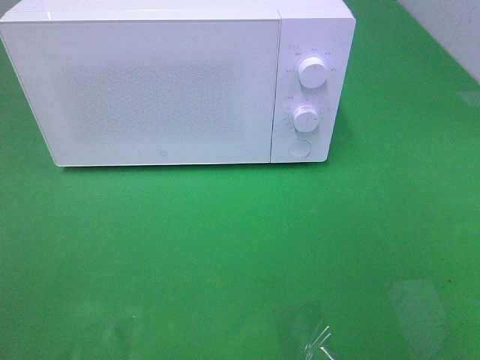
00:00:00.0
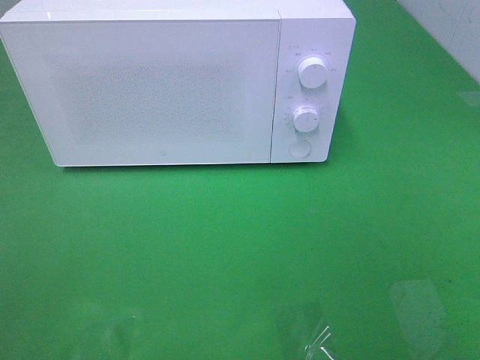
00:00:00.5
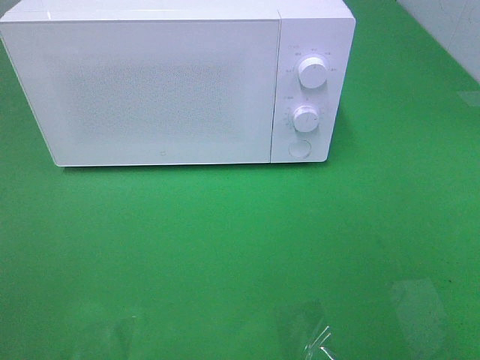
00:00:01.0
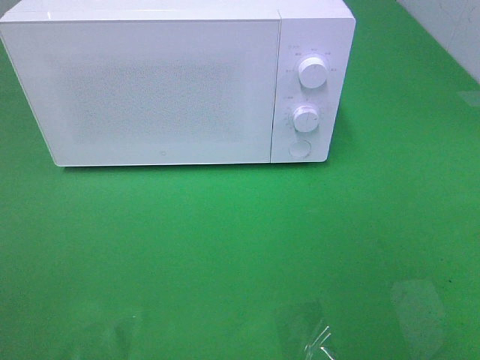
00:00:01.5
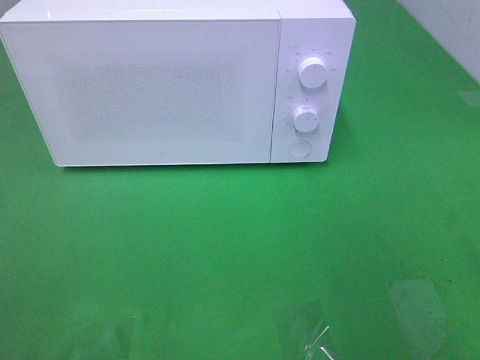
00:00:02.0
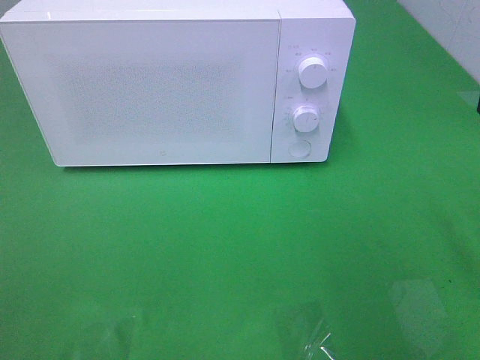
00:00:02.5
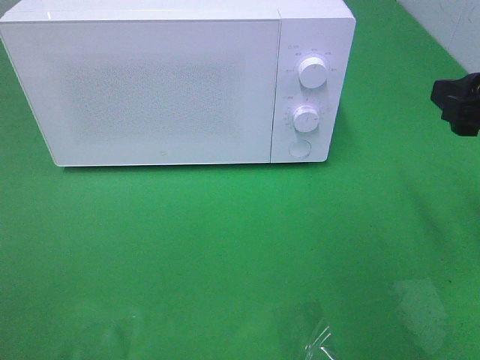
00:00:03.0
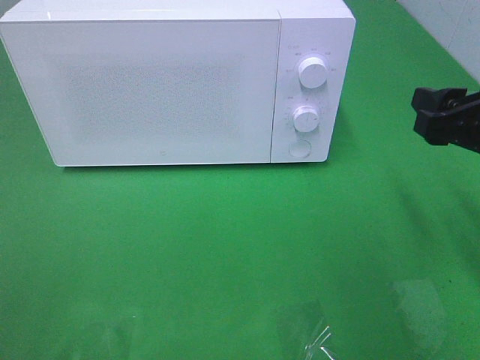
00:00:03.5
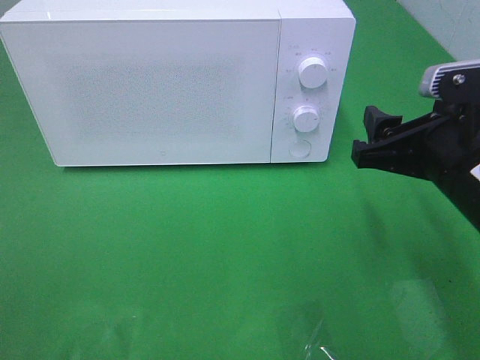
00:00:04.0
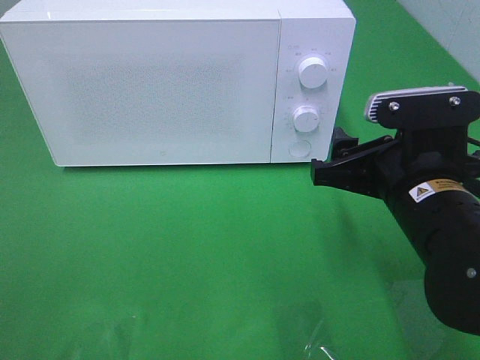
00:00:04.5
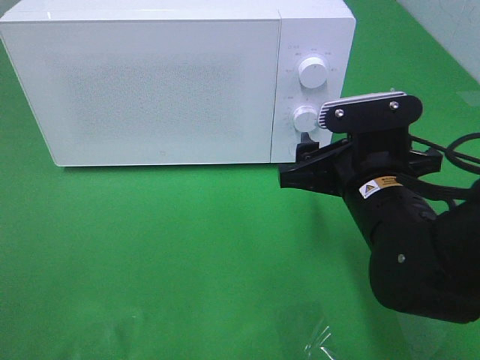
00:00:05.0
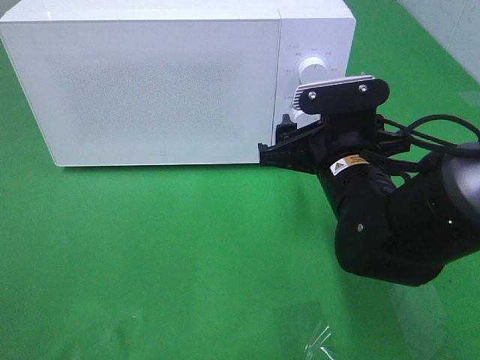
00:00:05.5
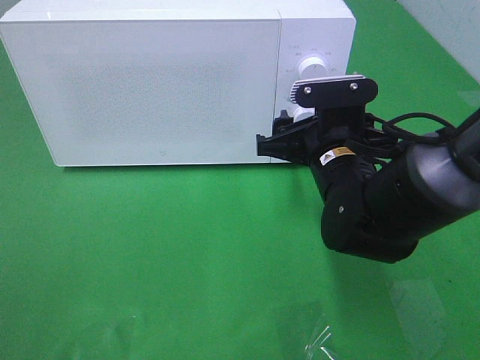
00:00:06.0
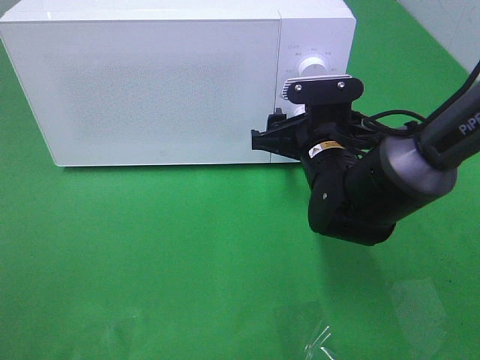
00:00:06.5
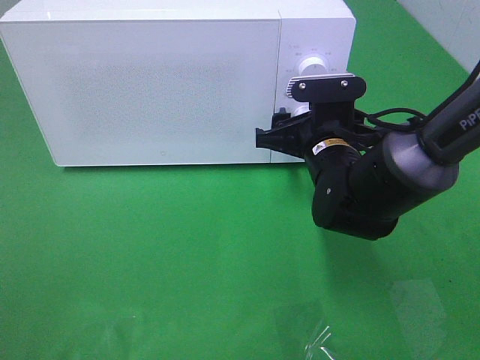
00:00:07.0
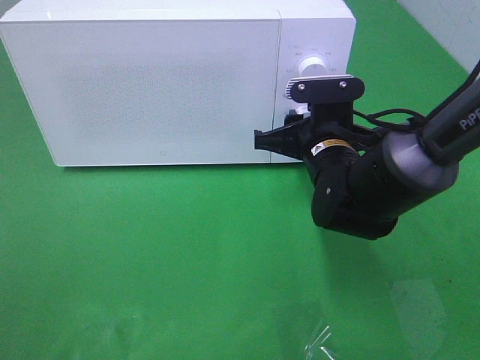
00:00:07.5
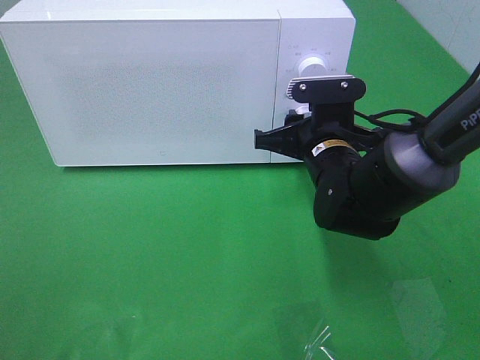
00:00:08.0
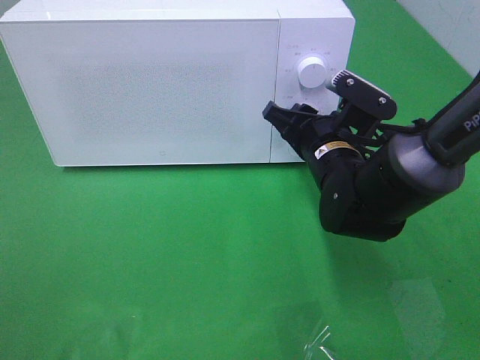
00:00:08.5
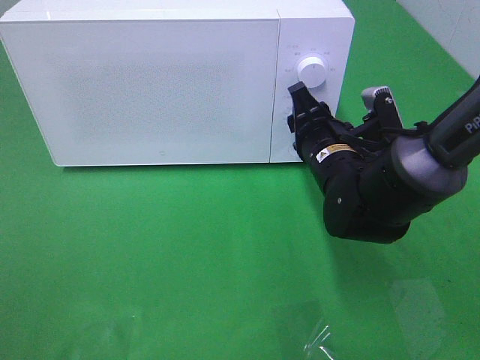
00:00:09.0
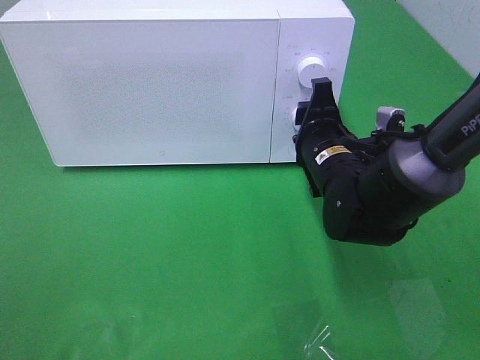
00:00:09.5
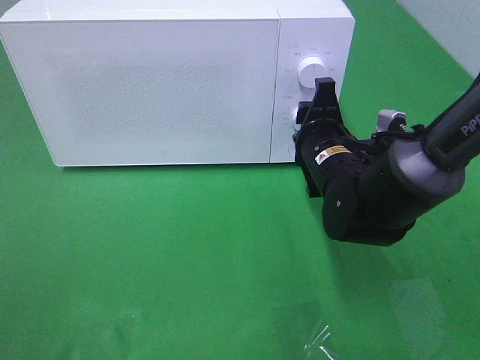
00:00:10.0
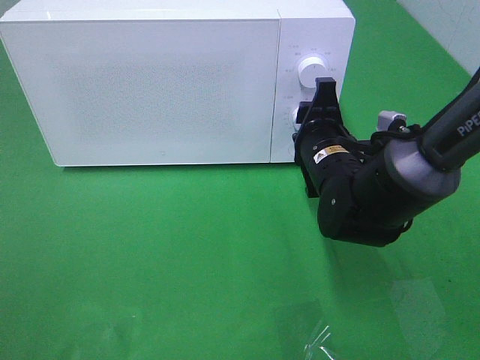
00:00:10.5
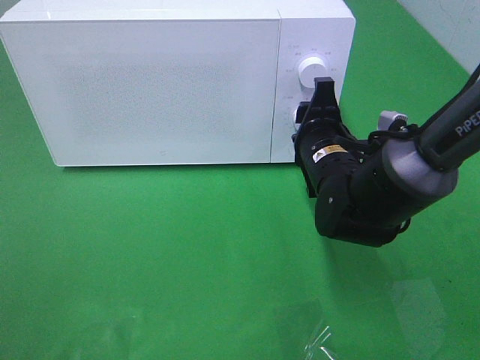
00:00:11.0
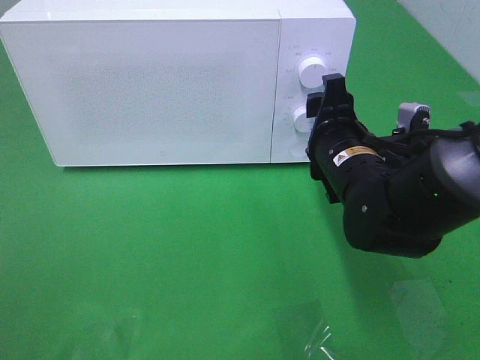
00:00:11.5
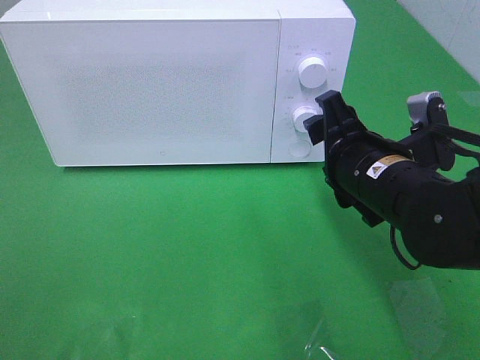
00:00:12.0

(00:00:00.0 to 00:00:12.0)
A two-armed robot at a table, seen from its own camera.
Task of the whole recording: Heat the burger.
Step, 00:00:00.0 - 00:00:11.5: Right hand: twist timer button.
00:00:02.0 - 00:00:04.0: The right gripper shifts approximately 15 cm forward, downward and to the left.
00:00:04.0 - 00:00:06.0: The right gripper moves to the left, forward and downward, some 15 cm.
00:00:06.0 - 00:00:08.0: The right gripper closes.
00:00:10.0 - 00:00:12.0: The right gripper heads backward, covering about 5 cm.

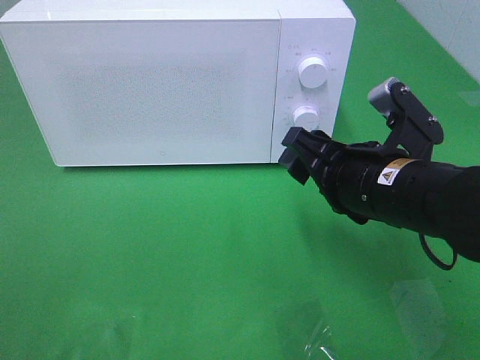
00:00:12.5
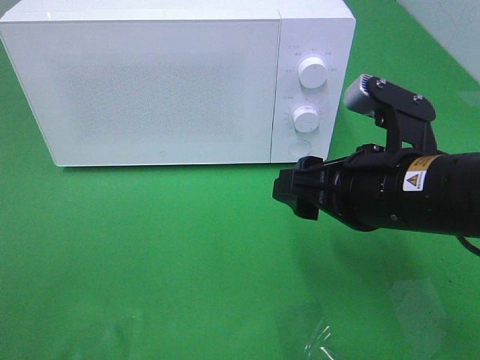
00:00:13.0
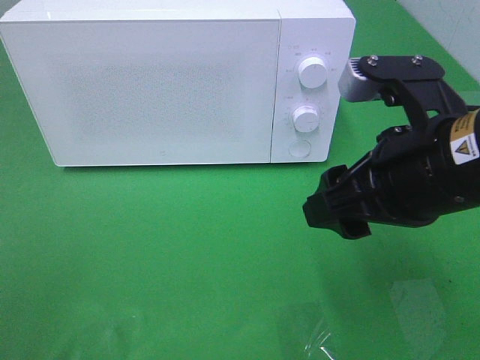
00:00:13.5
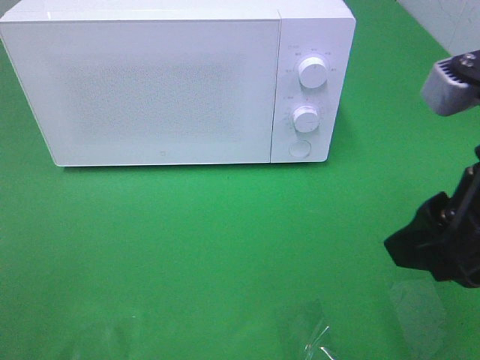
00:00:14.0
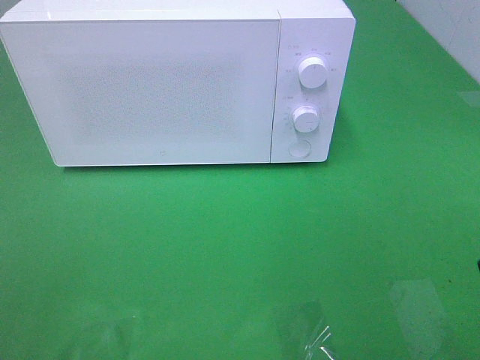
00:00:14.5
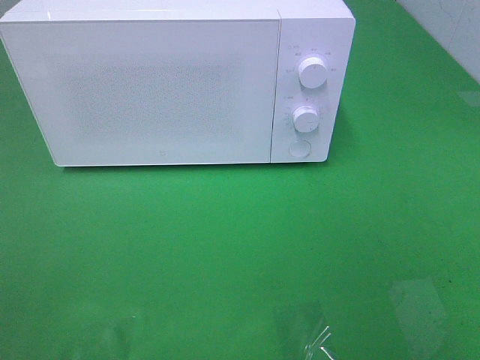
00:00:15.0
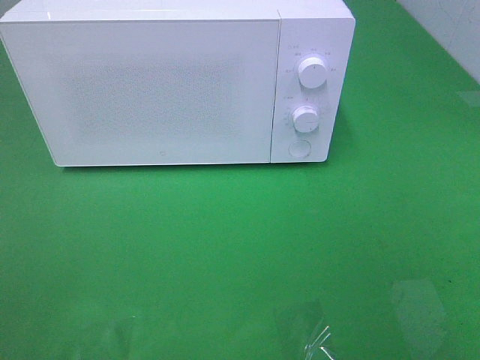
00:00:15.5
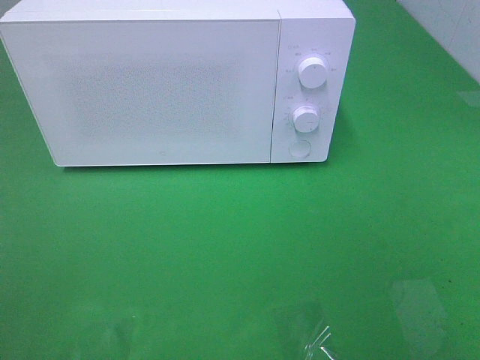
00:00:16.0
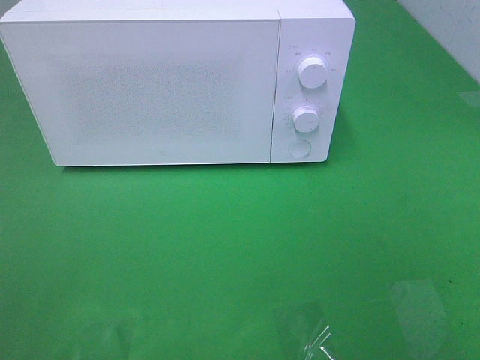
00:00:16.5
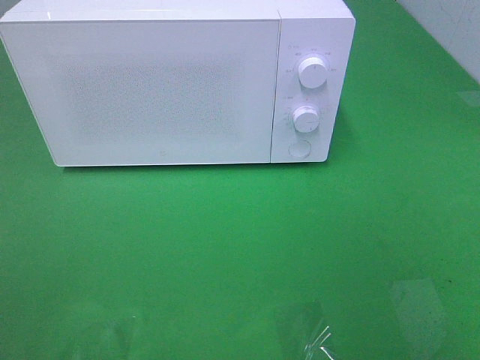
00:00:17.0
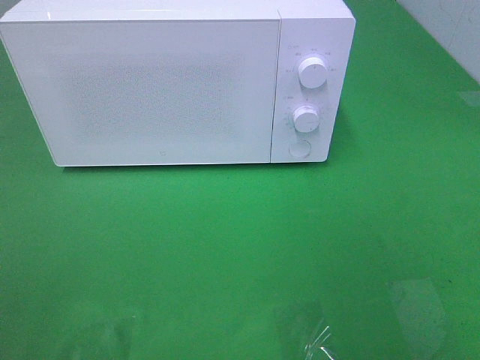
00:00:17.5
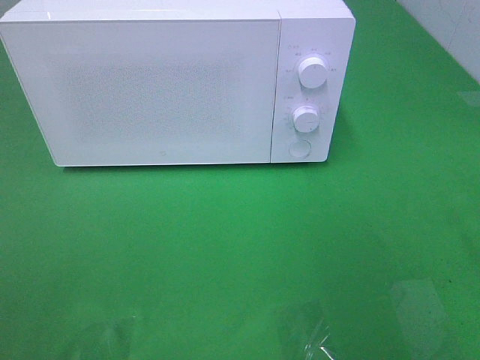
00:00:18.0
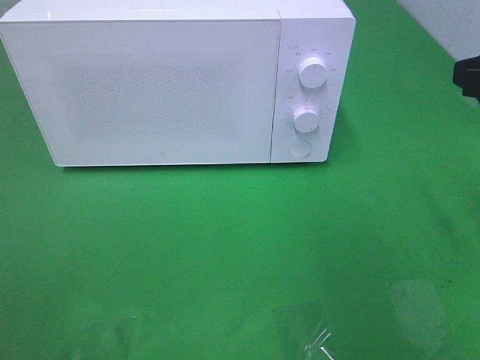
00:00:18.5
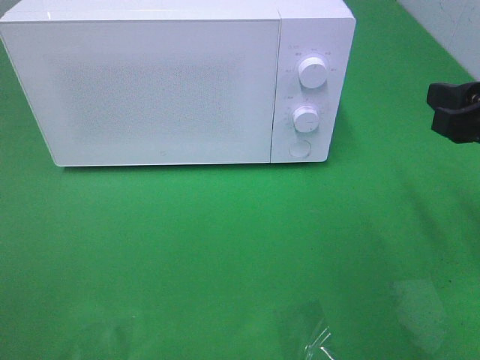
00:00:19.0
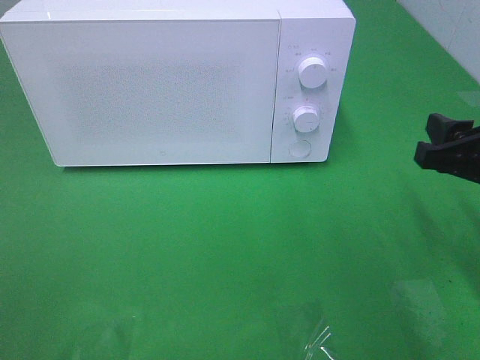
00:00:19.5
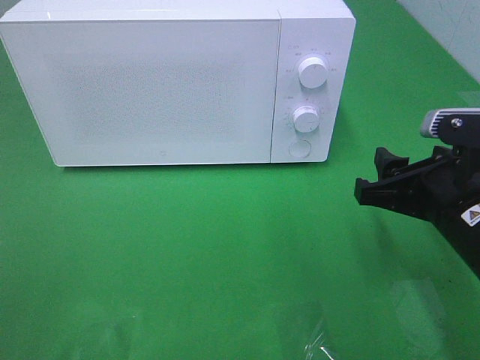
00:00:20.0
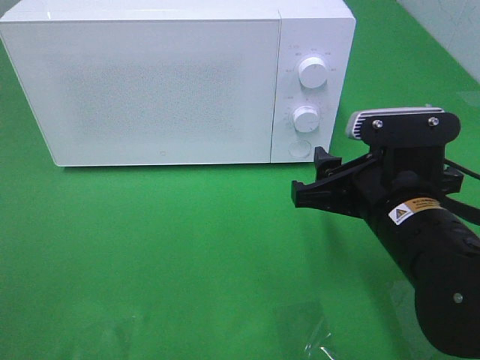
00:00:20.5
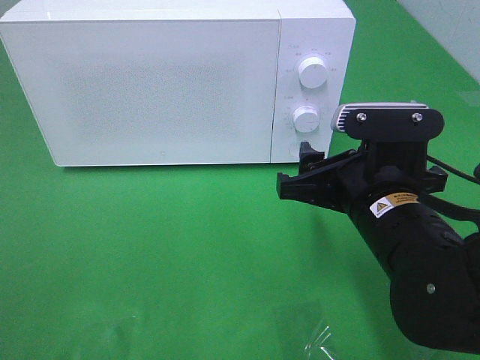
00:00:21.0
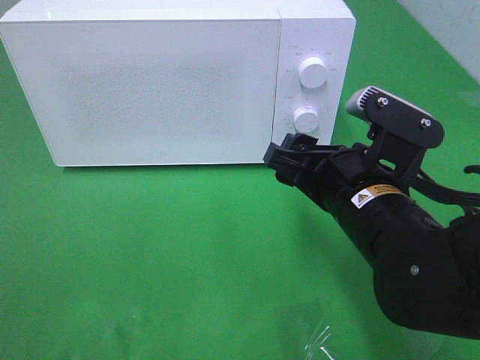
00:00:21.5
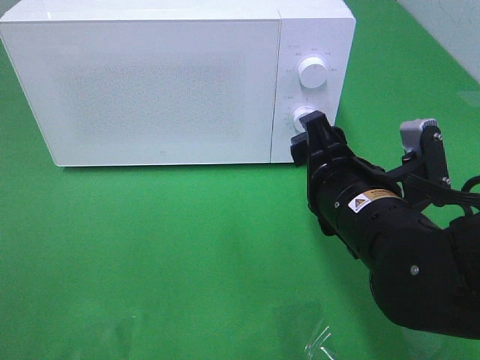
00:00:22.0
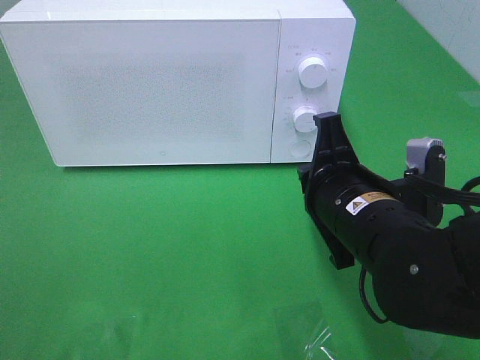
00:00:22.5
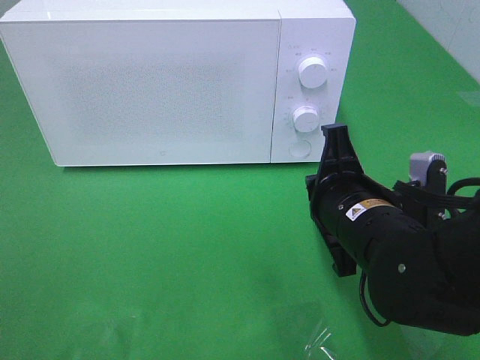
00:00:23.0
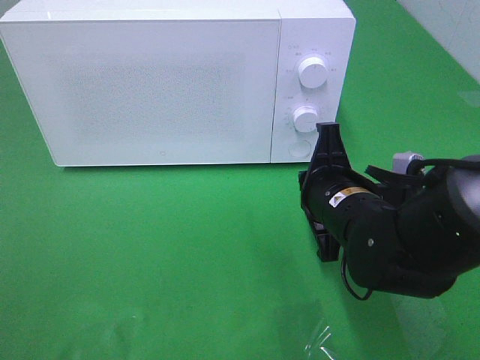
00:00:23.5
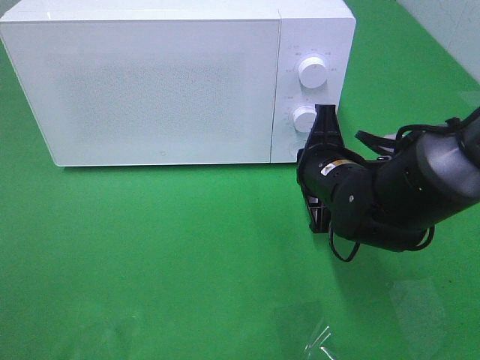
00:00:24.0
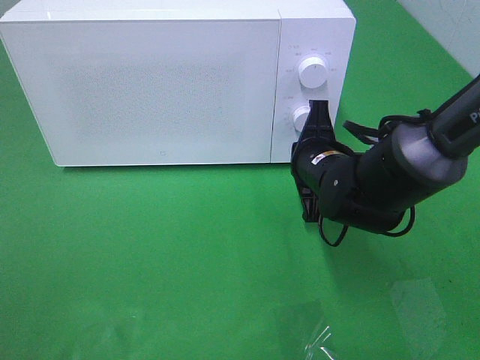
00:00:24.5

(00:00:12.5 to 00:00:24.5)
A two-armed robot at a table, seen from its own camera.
Task of the whole recording: Heat the burger.
00:00:12.5 - 00:00:14.5: The right gripper travels backward, upward and to the right by approximately 20 cm.
00:00:18.5 - 00:00:20.5: The right gripper is displaced downward and to the left by about 20 cm.
00:00:20.5 - 00:00:22.5: The right gripper closes its fingers.
00:00:22.5 - 00:00:24.5: The right gripper moves forward and downward, roughly 15 cm.

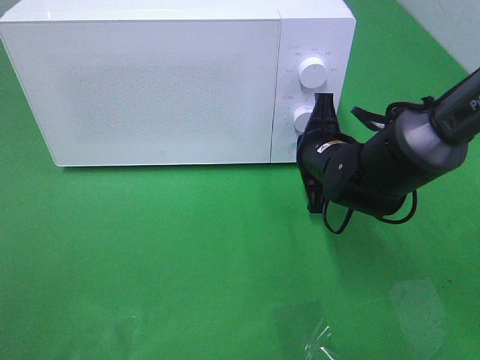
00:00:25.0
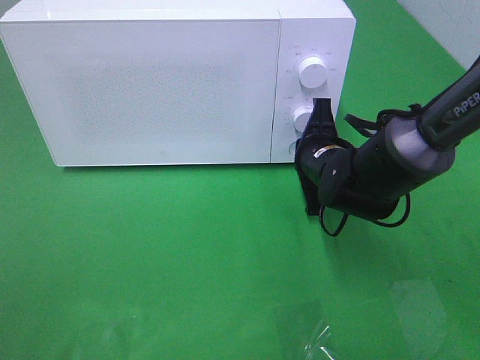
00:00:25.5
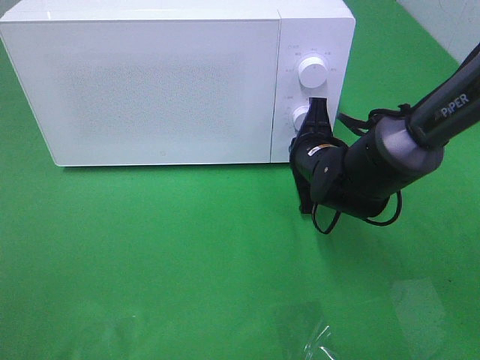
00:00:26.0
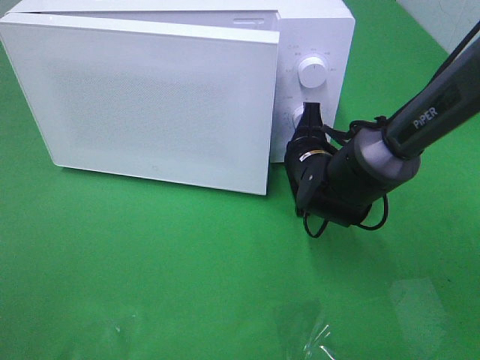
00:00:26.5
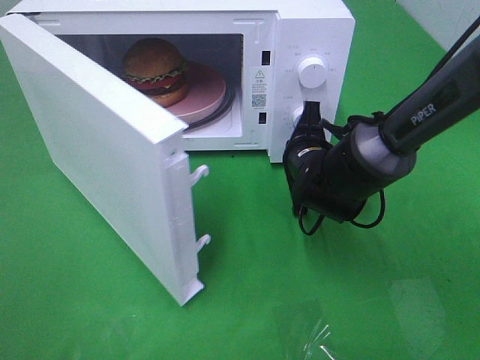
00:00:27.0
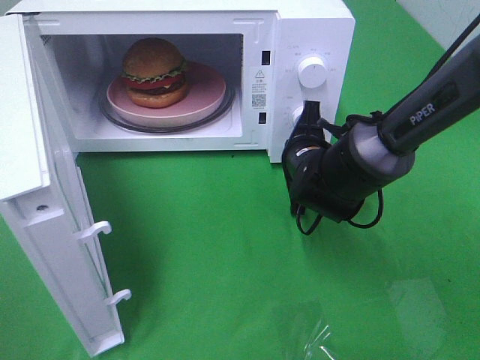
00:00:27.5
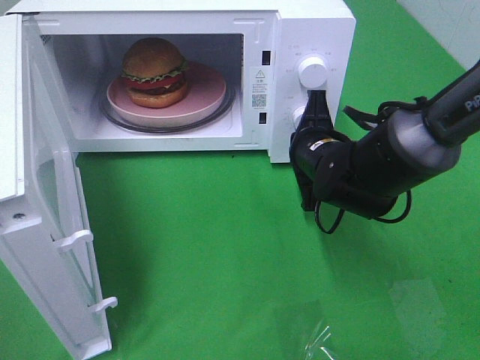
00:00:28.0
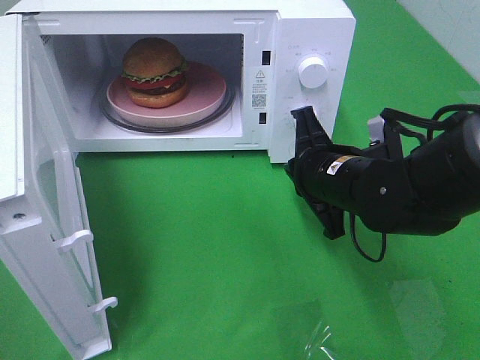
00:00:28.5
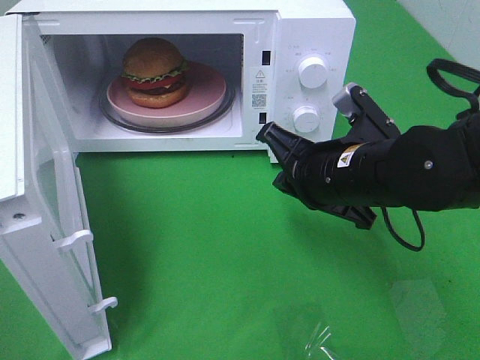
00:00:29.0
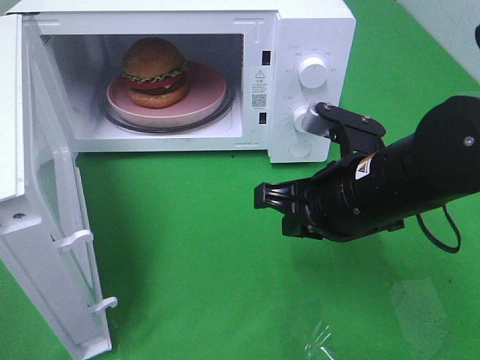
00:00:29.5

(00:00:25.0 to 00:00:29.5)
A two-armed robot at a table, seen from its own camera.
Task of the whole recording: Heat the burger.
Step, 00:00:25.0 - 00:00:28.0: Right hand: press the switch.
00:00:27.0 - 00:00:29.5: The right gripper heads backward and upward, covering some 15 cm.
